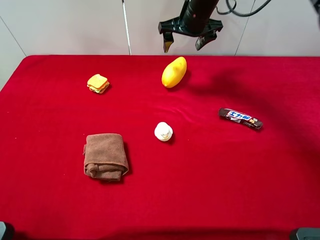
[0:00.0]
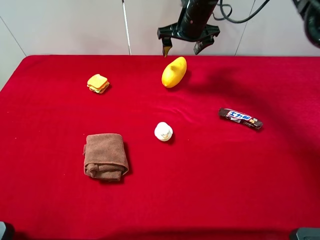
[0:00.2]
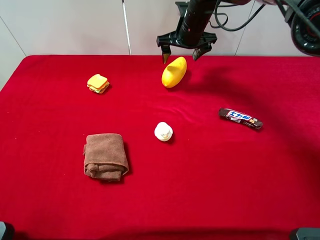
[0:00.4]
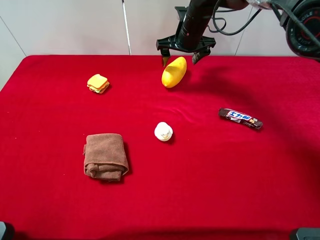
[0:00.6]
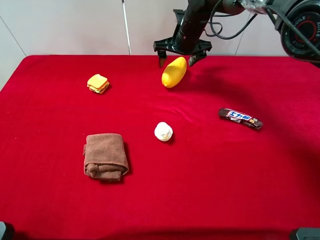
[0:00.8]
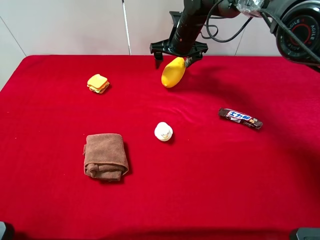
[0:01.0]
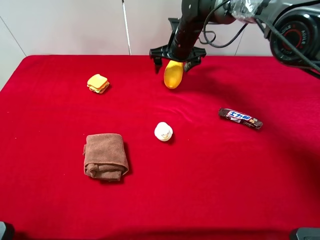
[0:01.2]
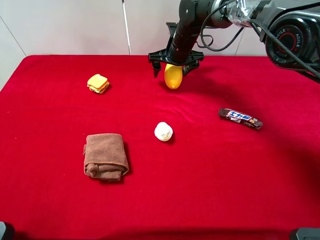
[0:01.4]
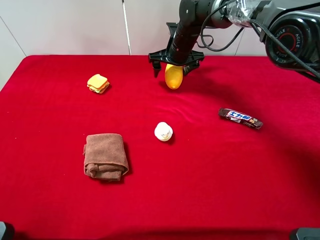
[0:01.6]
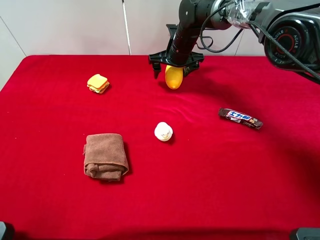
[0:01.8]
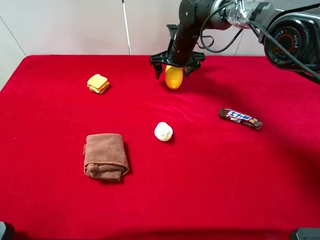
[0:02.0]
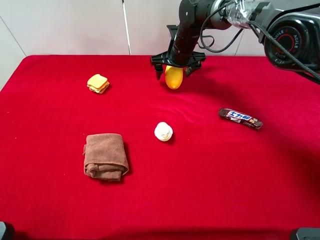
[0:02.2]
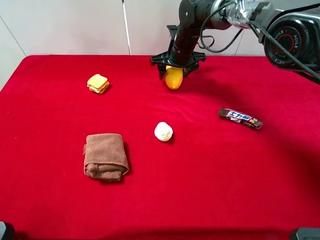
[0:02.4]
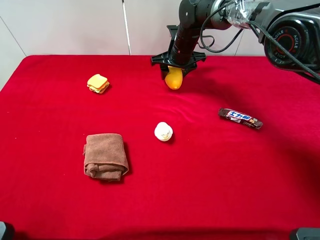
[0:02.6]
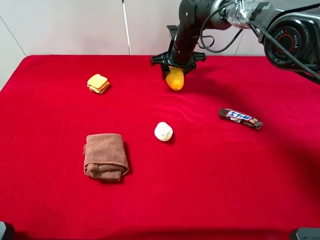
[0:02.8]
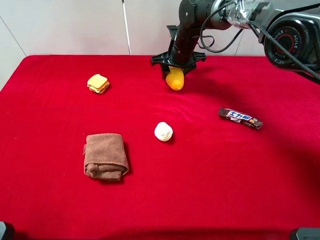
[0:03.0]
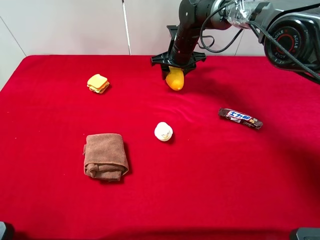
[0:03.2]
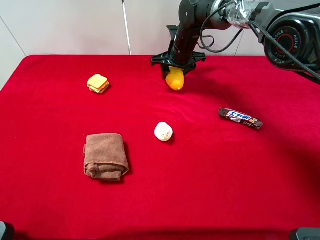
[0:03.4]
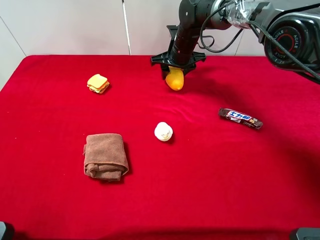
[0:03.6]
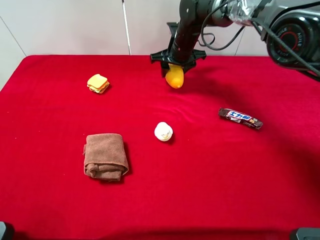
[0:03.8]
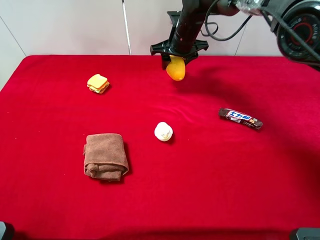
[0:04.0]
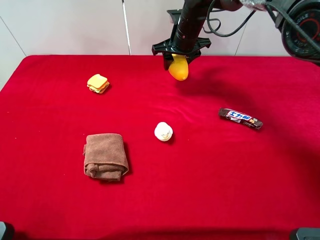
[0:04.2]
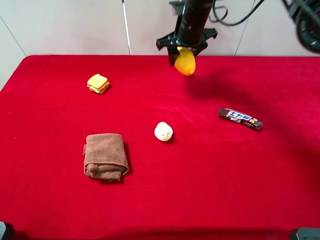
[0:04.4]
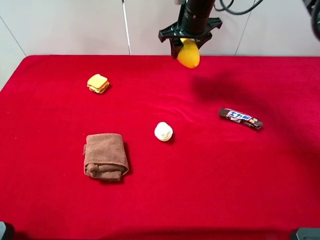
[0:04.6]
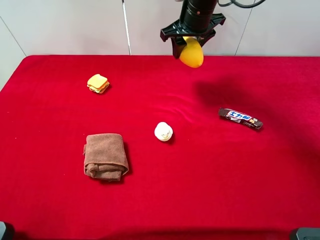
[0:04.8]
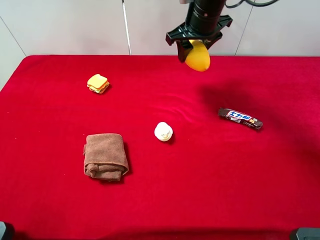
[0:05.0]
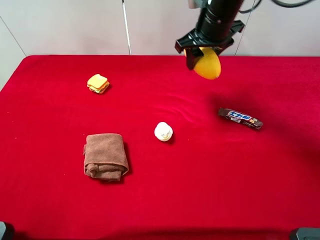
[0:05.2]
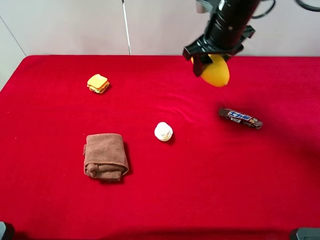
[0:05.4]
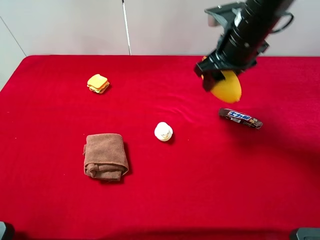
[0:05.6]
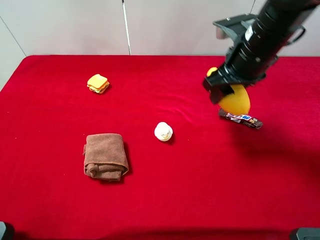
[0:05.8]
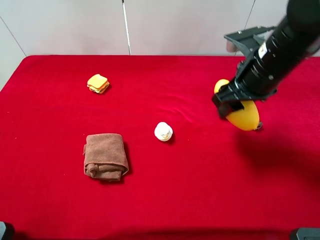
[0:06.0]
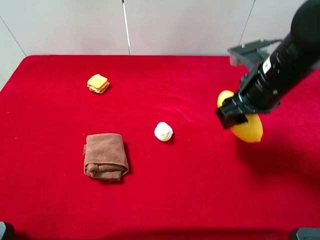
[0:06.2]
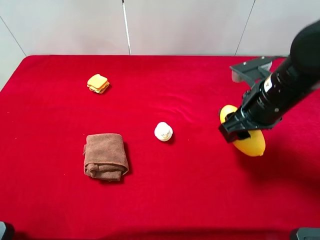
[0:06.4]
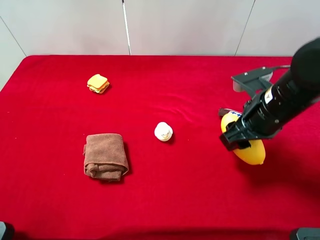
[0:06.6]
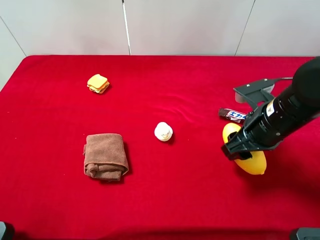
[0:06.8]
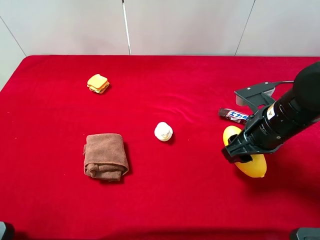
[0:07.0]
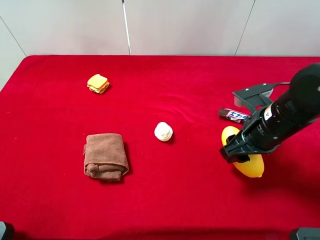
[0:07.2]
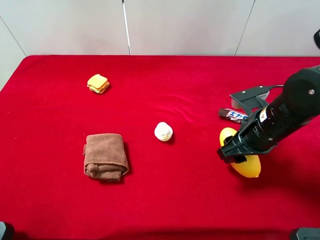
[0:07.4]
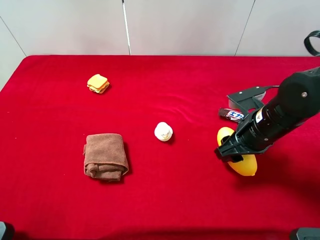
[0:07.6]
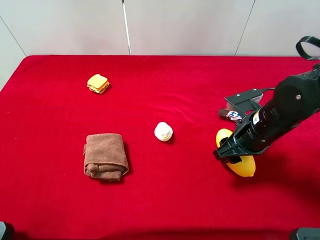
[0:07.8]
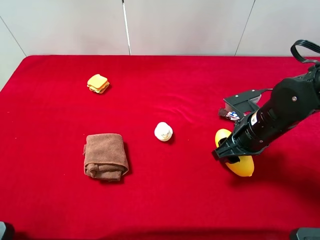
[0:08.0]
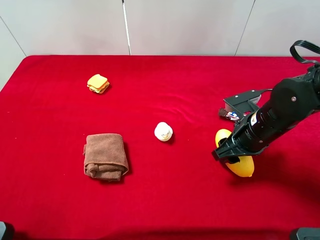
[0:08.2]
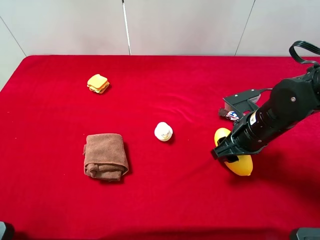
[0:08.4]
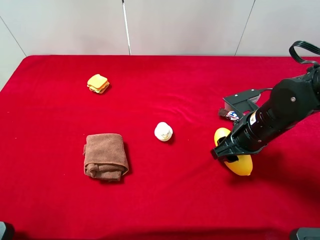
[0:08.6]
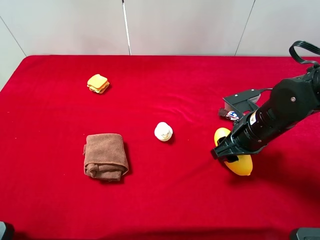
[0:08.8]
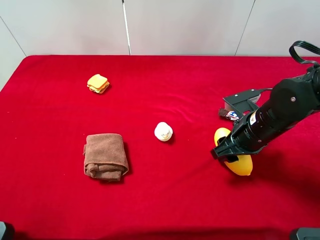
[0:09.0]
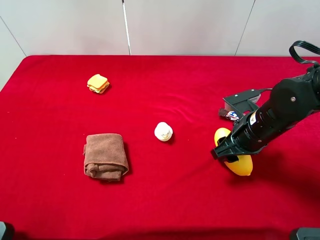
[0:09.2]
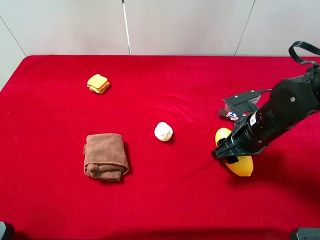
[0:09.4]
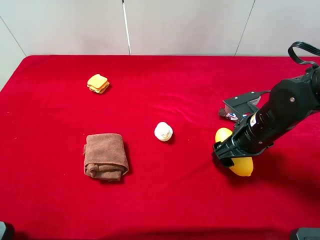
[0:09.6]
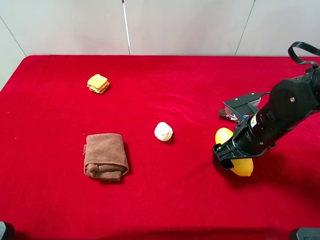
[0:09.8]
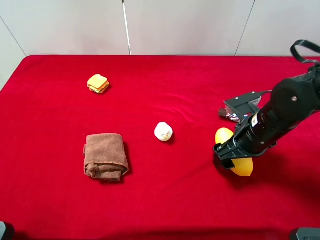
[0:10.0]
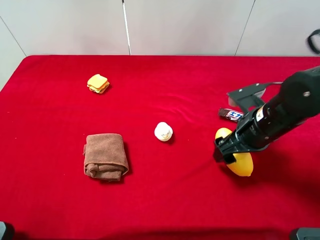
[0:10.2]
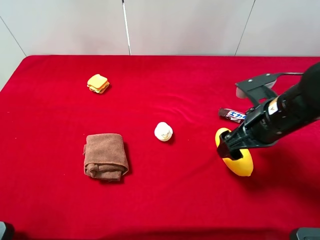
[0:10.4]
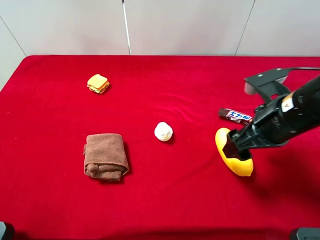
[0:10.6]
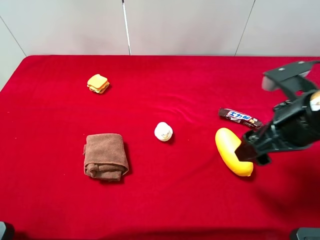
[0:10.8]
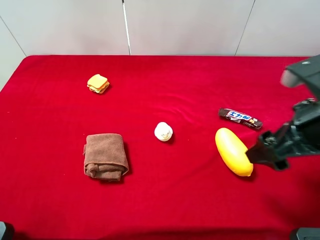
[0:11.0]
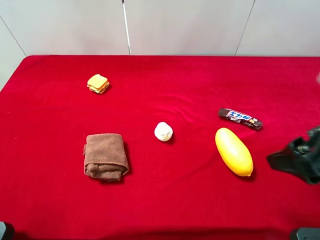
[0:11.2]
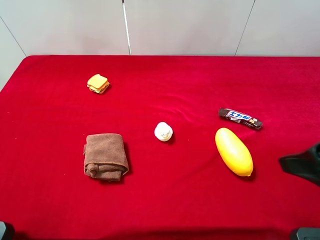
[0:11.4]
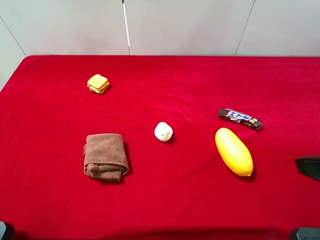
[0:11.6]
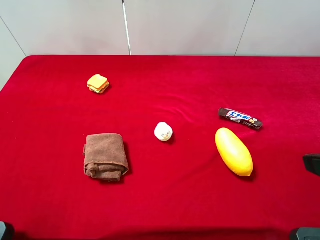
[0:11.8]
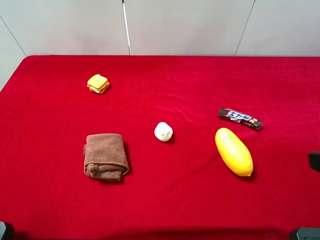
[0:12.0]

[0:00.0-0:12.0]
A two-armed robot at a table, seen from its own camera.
Task of the whole recording: the gripper move the object.
Step, 0:00.0 to 0:03.0: Grasp the mango with the right gripper.
Step, 0:03.2 to 0:11.0: Place the mango on the table with the right gripper.
0:00.0 to 0:01.6: The right gripper goes about 10 cm downward.
0:01.6 to 0:03.0: The right gripper closes up.
0:03.0 to 0:04.4: The right gripper heads upward, covering about 5 cm.
0:04.4 to 0:06.0: The right gripper heads backward and to the right, covering approximately 20 cm.
0:06.0 to 0:07.6: The right gripper is displaced downward and backward by some 10 cm.
0:07.6 to 0:09.0: The grippers make only small movements.
0:09.0 to 0:10.4: The right gripper opens up.
0:10.4 to 0:12.0: The right gripper shifts some 20 cm backward, upward and to the right.

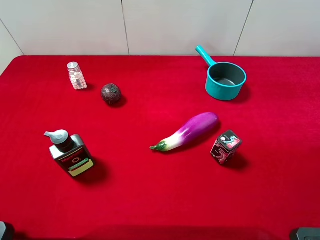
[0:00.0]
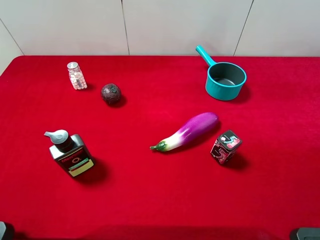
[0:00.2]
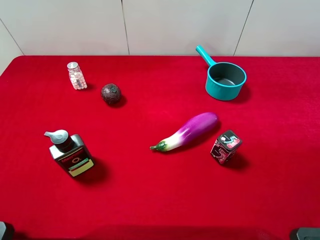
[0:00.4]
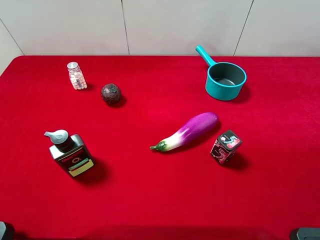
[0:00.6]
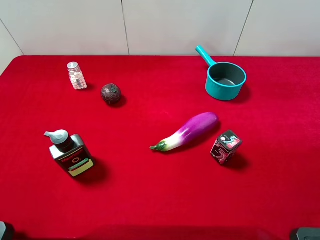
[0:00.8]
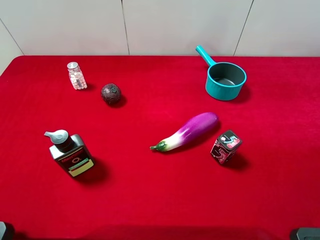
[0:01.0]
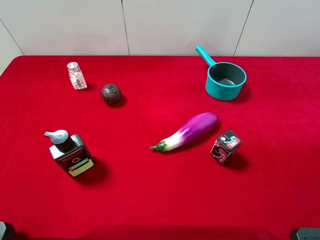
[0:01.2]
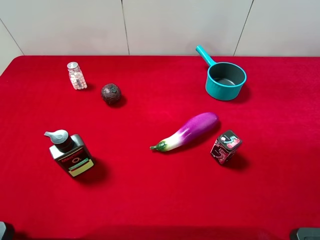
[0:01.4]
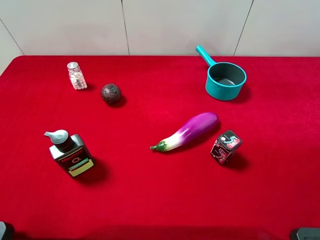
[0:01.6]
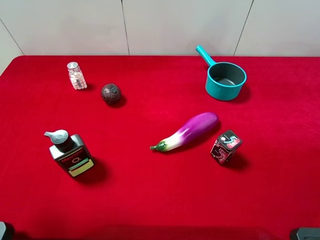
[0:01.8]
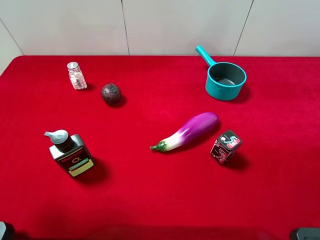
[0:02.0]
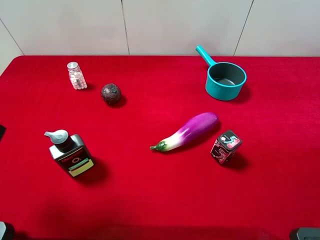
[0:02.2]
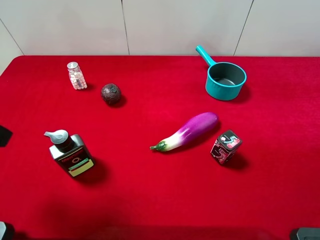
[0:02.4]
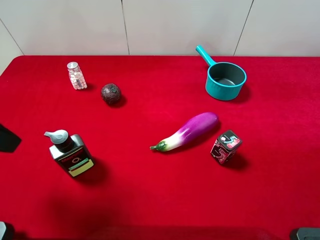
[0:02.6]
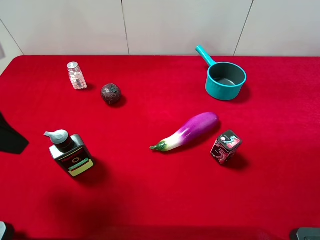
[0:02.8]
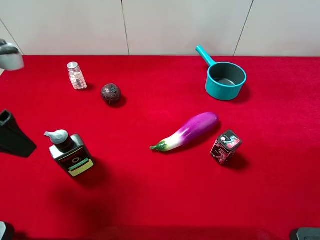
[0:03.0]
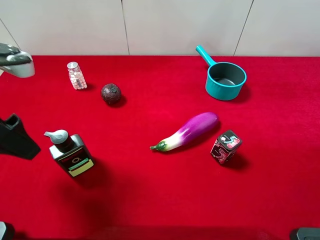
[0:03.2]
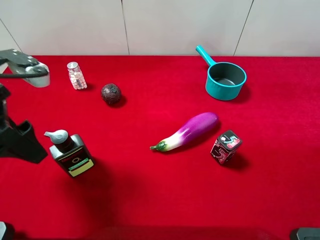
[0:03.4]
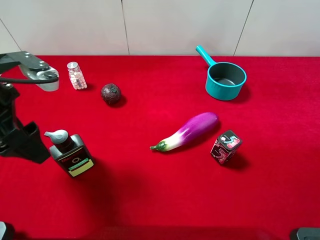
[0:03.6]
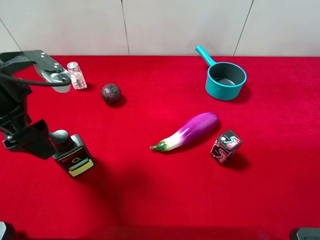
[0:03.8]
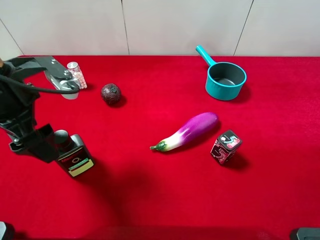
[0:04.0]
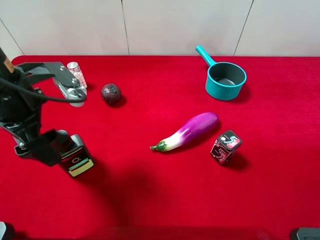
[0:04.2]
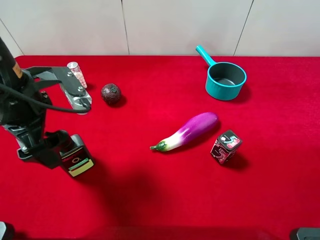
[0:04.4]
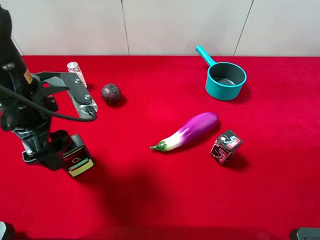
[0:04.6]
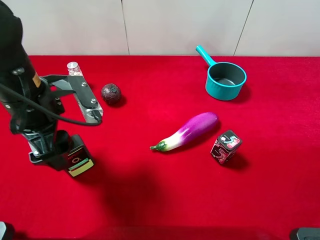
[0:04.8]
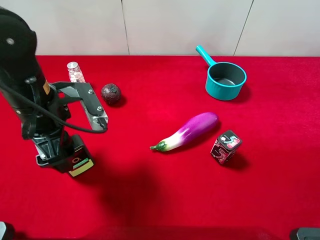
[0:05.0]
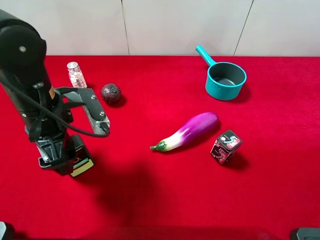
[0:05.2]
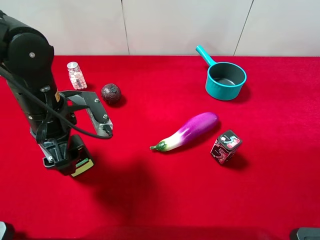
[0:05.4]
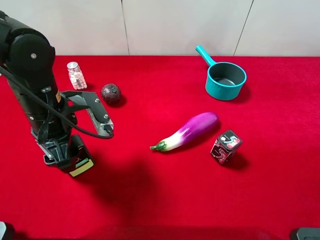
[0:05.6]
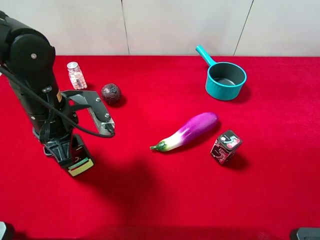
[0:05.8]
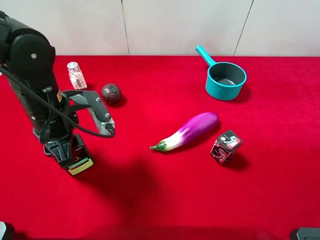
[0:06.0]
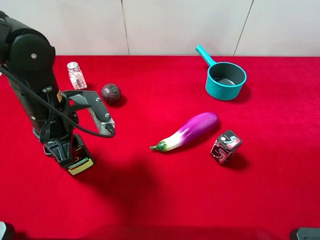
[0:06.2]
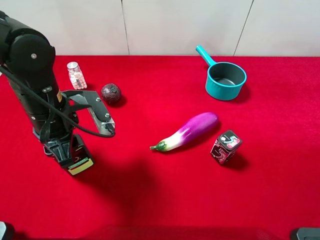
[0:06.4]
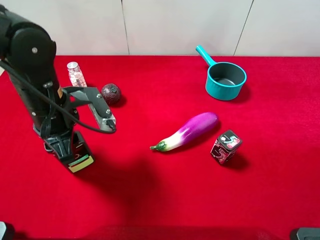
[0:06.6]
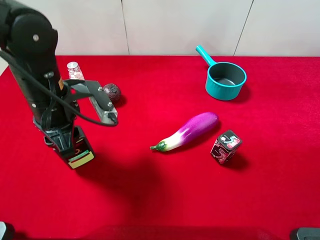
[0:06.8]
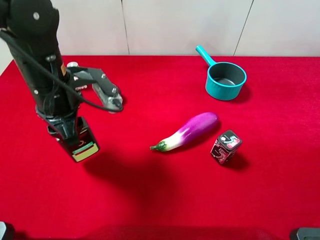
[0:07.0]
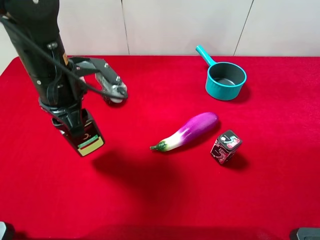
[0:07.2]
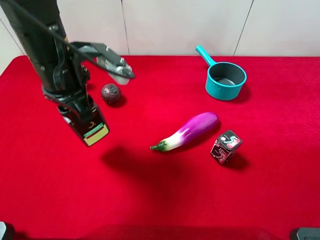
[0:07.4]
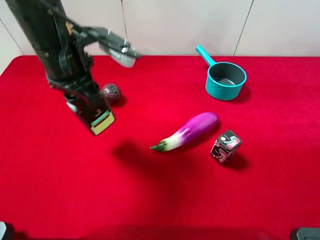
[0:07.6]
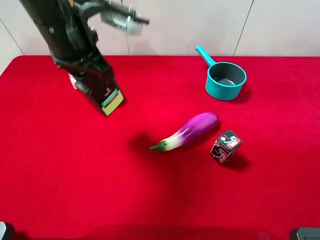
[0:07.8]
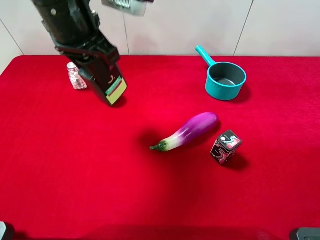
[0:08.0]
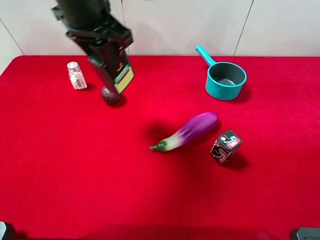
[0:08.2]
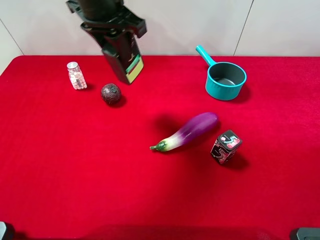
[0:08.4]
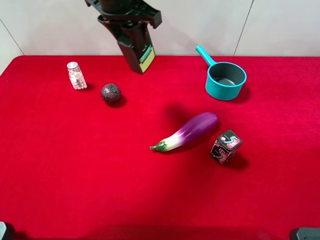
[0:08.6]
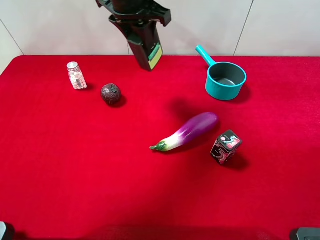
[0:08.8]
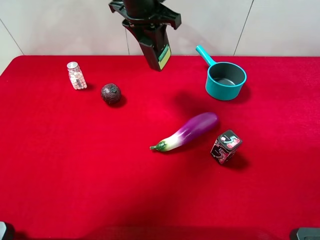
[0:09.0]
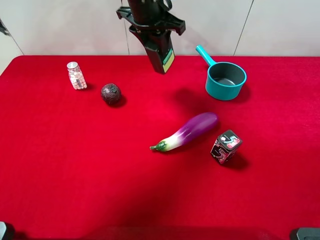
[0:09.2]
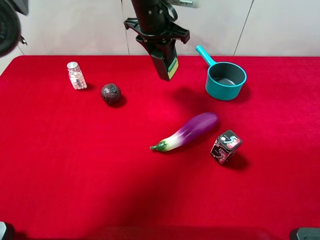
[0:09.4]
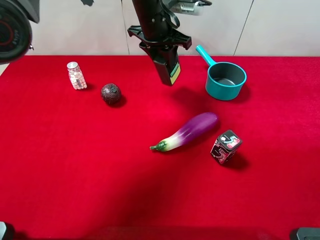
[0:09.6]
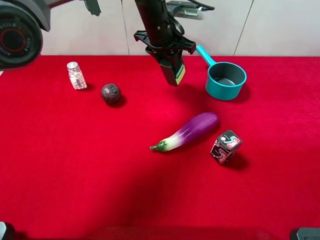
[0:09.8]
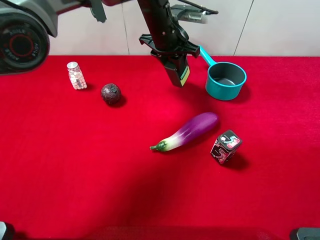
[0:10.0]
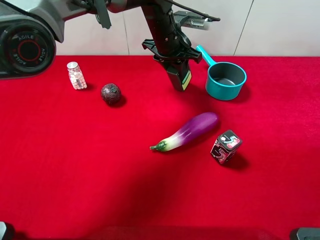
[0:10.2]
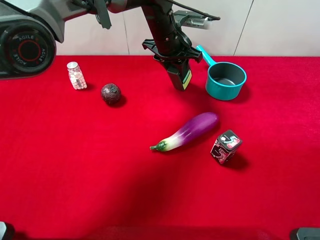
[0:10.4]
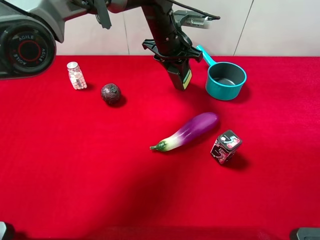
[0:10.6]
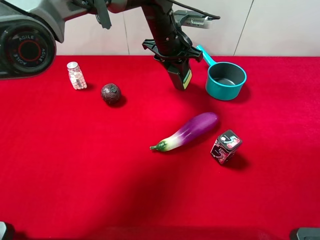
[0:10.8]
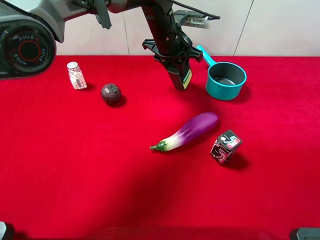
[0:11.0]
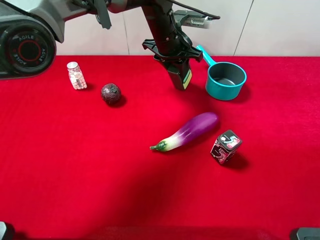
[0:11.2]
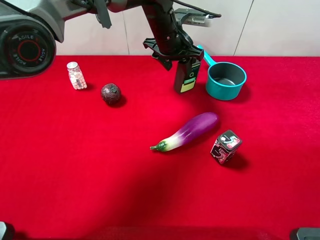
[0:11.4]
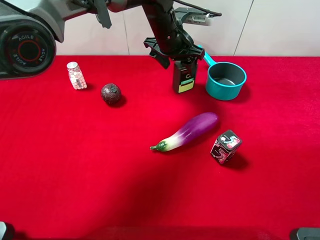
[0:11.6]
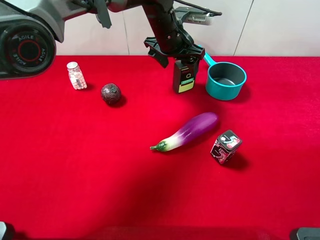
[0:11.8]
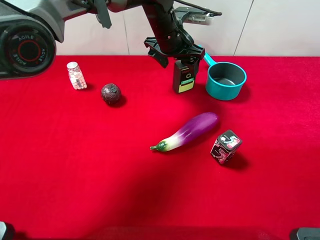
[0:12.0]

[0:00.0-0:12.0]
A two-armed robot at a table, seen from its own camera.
Task of the whole recording: the gripper move the object.
Step, 0:00.0 to 0:06.0: Grasp the hard facial cleanser with the left gripper.
0:01.6 to 0:03.0: The left gripper travels forward and downward by approximately 10 cm.
0:03.0 to 0:04.4: The left gripper shifts approximately 5 cm to the right.
0:04.4 to 0:06.0: The left gripper is displaced downward by about 5 cm, and closes.
0:06.0 to 0:07.6: The left gripper travels upward by some 10 cm.
0:07.6 to 0:09.0: The left gripper heads forward and to the right, covering approximately 15 cm.
0:09.0 to 0:10.4: The left gripper is displaced downward and to the right by approximately 10 cm.
0:10.4 to 0:12.0: The left gripper opens its fingers.
